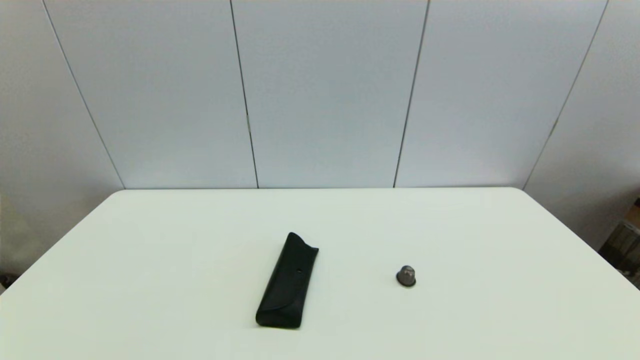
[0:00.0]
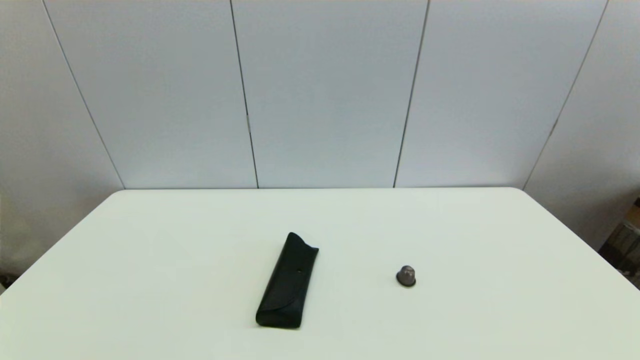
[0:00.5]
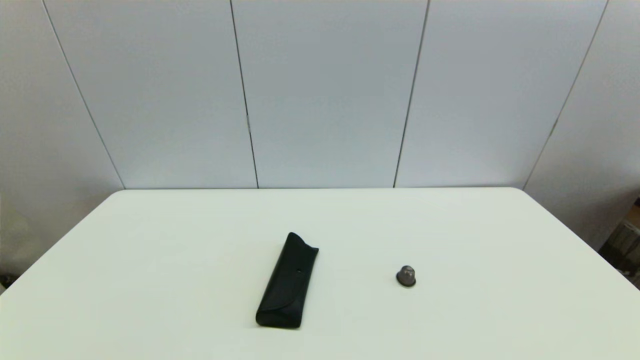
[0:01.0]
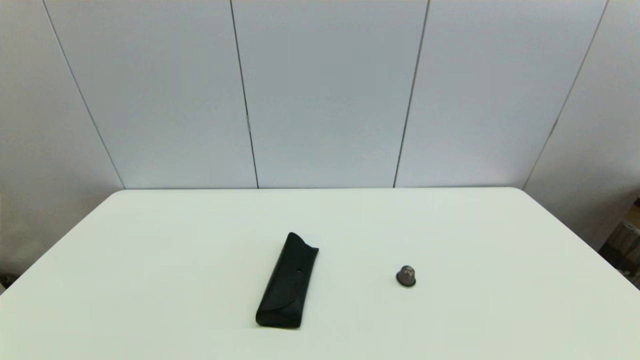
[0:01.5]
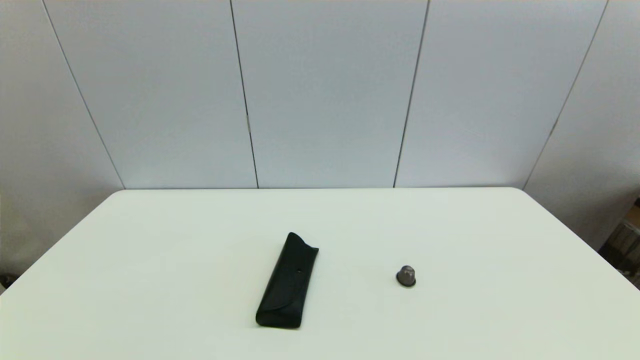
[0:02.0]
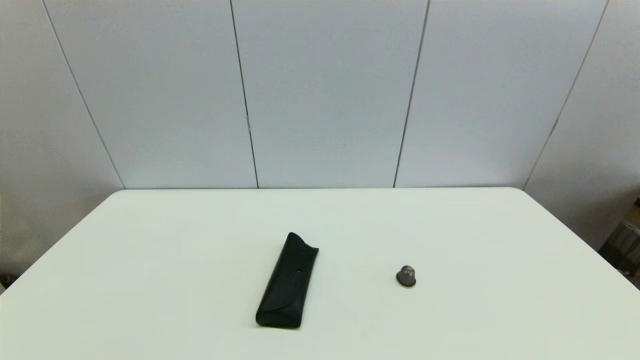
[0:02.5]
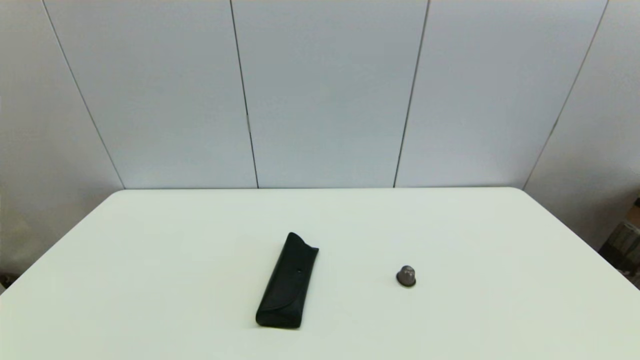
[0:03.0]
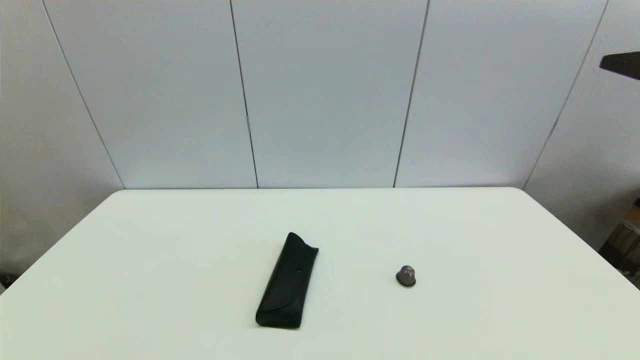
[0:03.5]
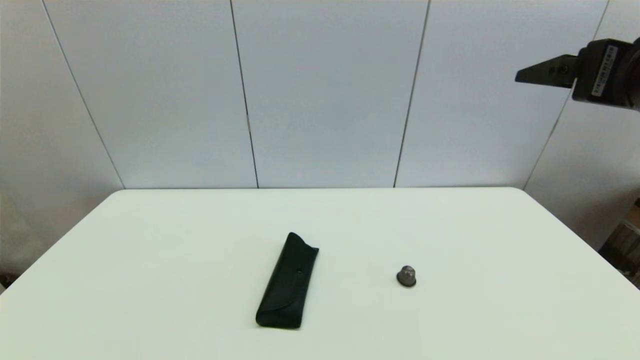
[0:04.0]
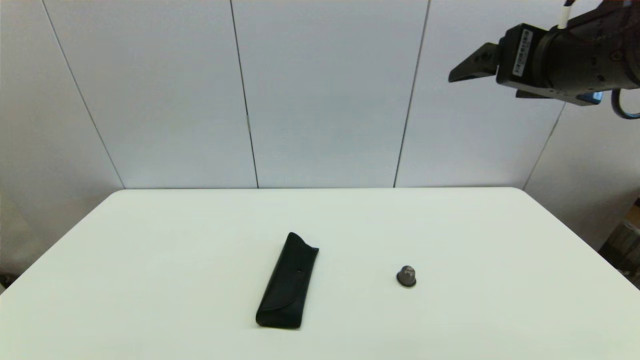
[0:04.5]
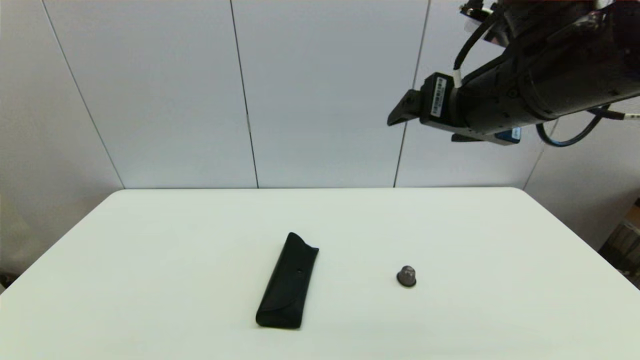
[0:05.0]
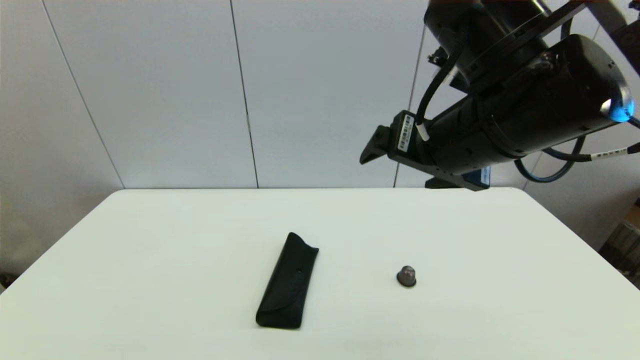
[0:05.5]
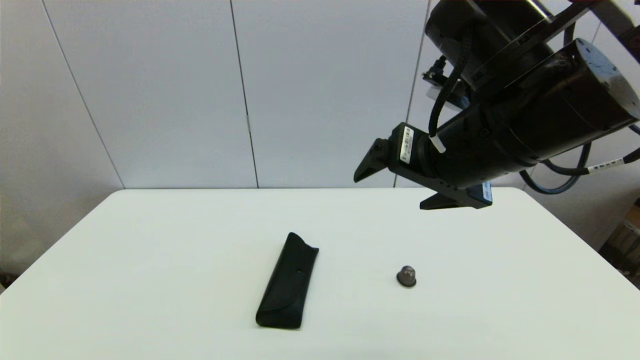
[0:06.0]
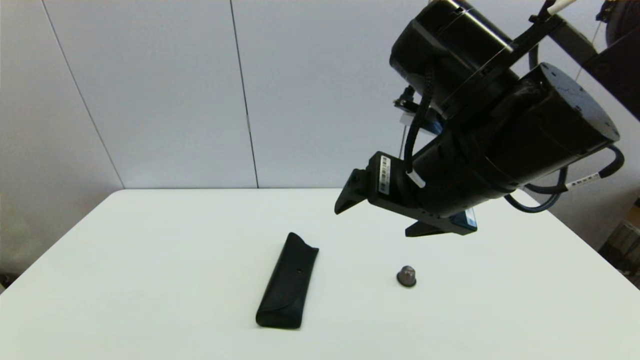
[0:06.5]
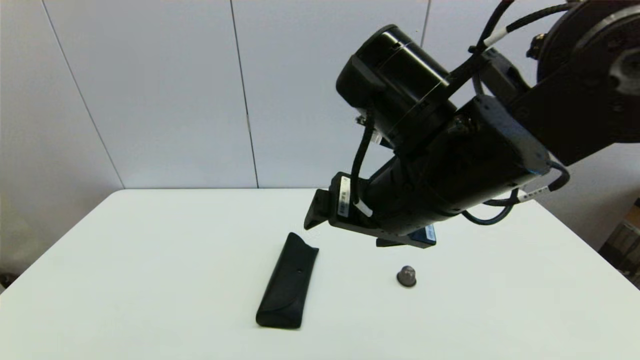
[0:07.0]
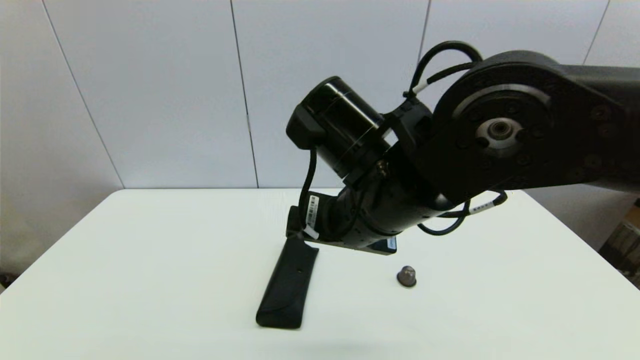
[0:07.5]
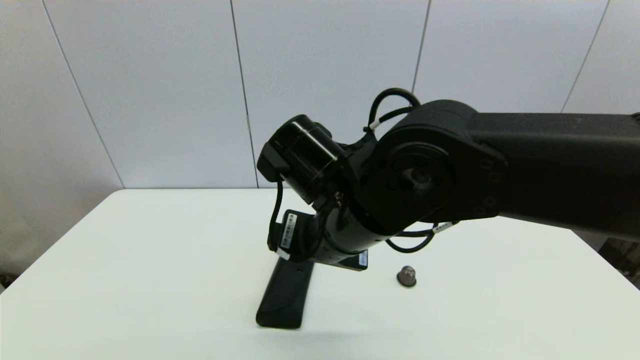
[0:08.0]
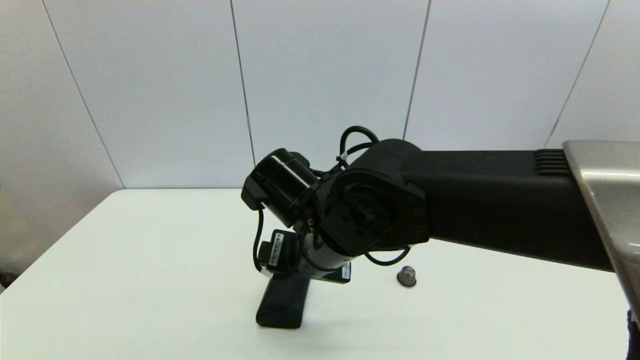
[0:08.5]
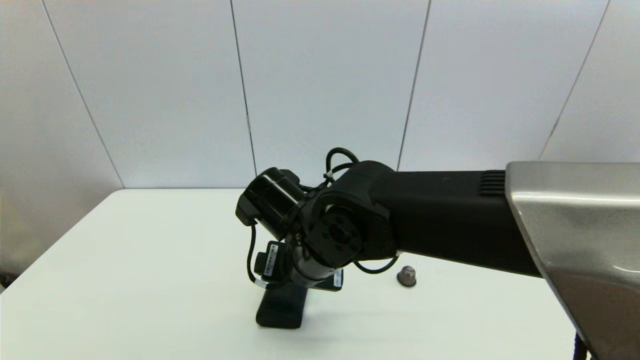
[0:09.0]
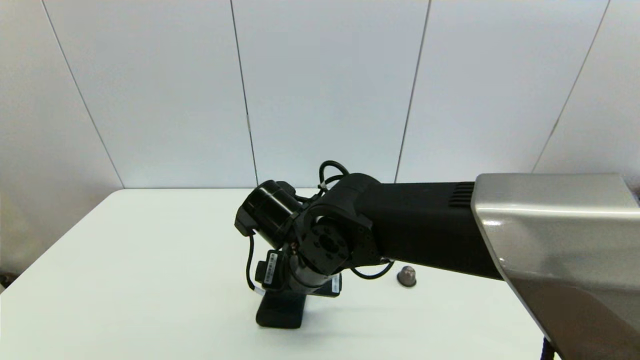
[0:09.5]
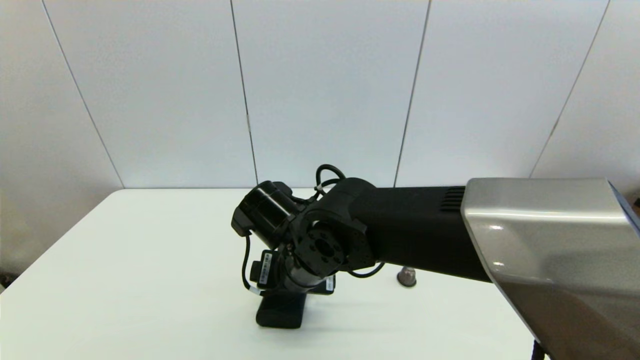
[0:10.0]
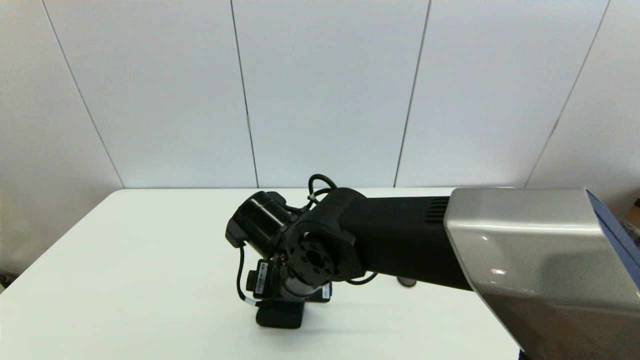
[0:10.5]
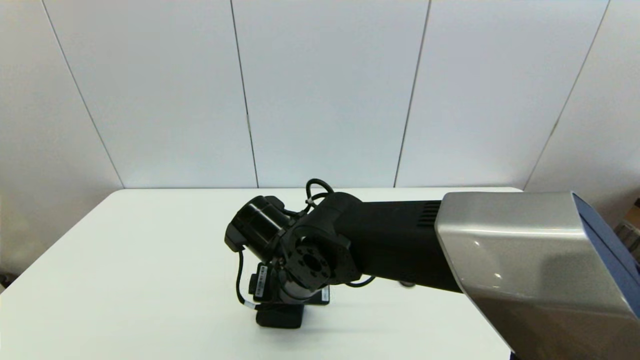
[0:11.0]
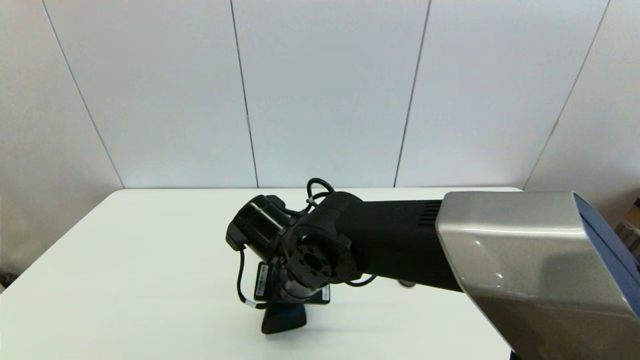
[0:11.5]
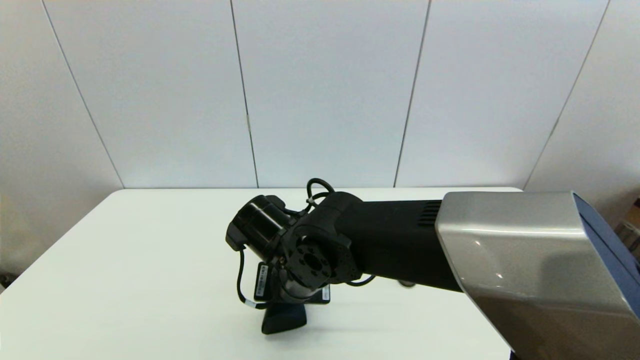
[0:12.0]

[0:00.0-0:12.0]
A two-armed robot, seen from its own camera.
Step, 0:03.5 to 0:11.5: Grasp the glasses case with right gripper.
0:02.0 to 0:04.0: The right gripper travels forward and upward by some 25 cm.
0:04.0 to 0:06.0: The right gripper travels to the left by some 15 cm.
0:06.0 to 0:08.0: The right gripper shifts approximately 15 cm to the left and downward.
0:08.0 to 0:10.0: The right gripper heads downward, covering approximately 10 cm.
0:10.0 to 0:12.0: The right gripper closes.

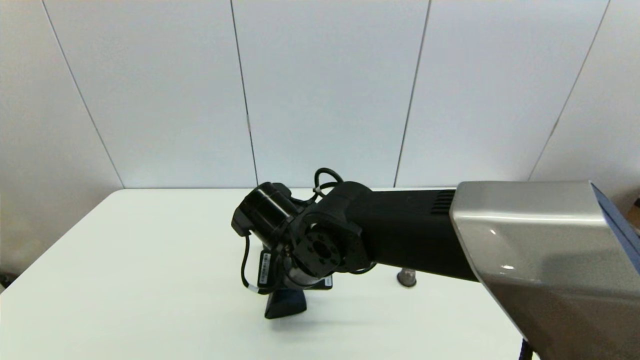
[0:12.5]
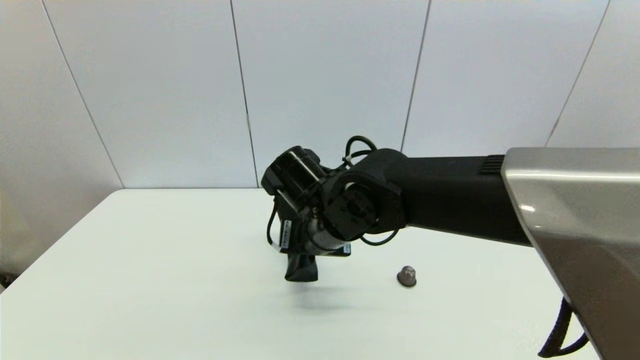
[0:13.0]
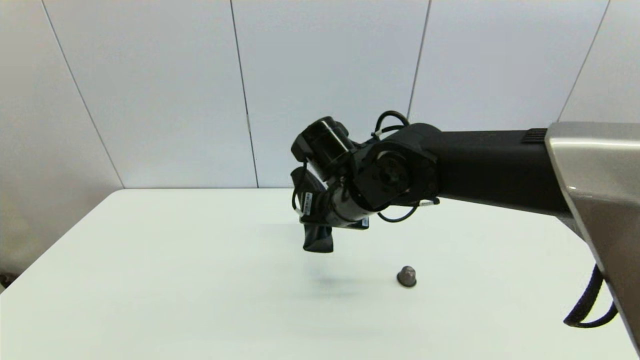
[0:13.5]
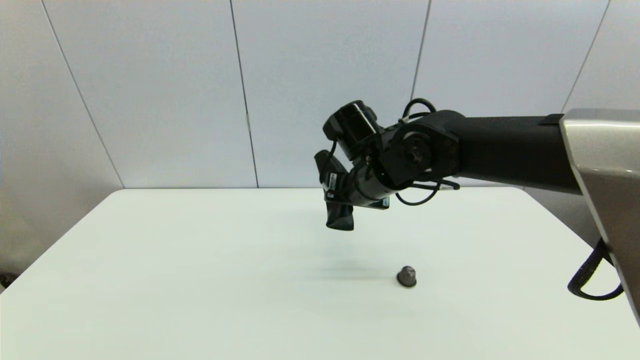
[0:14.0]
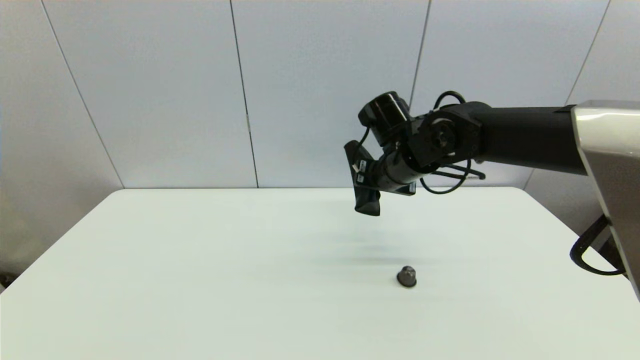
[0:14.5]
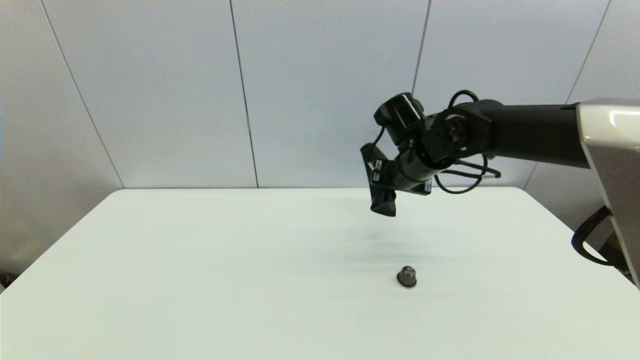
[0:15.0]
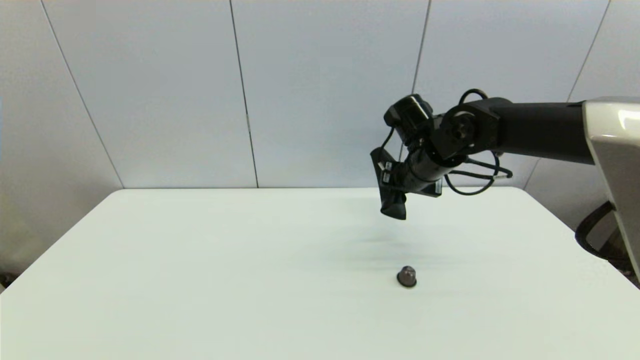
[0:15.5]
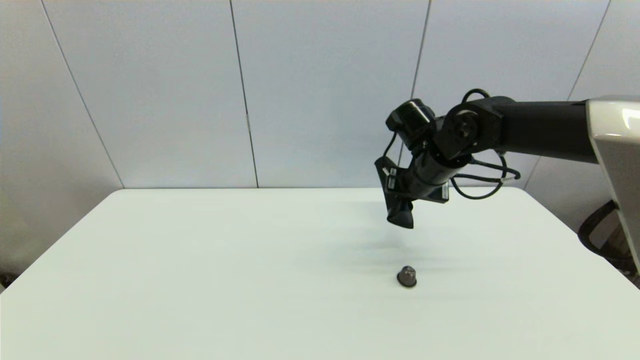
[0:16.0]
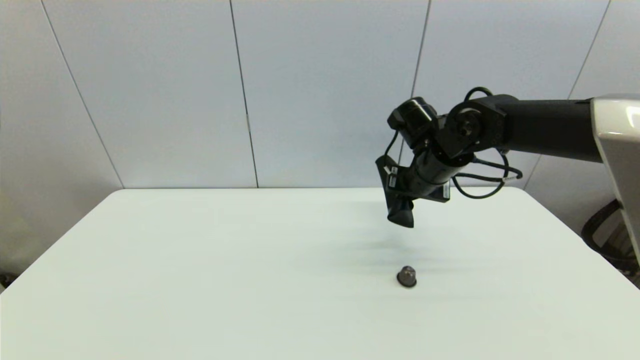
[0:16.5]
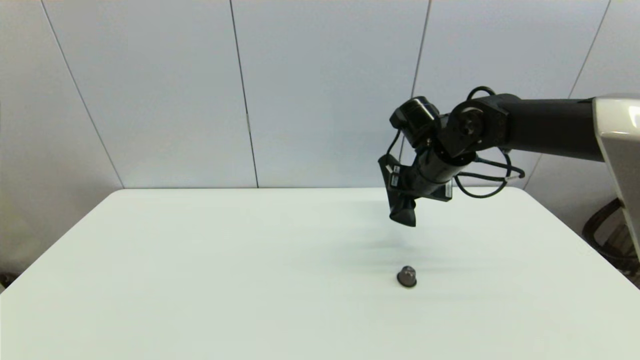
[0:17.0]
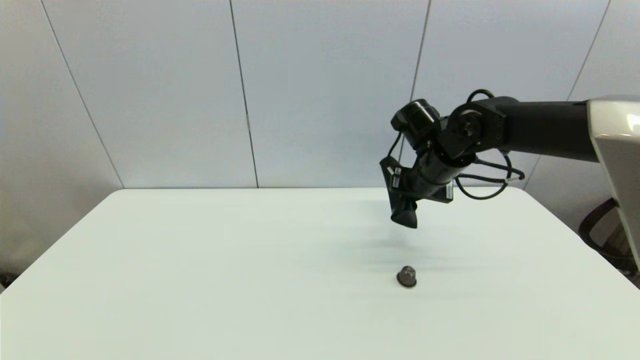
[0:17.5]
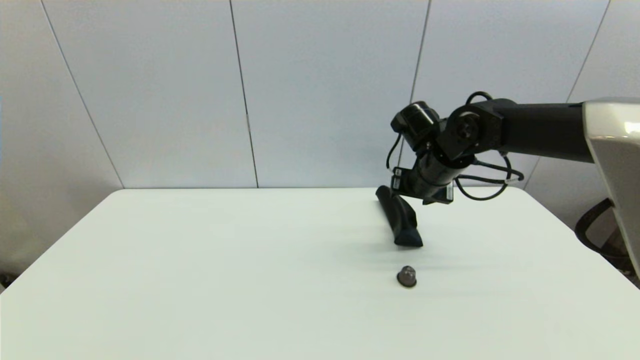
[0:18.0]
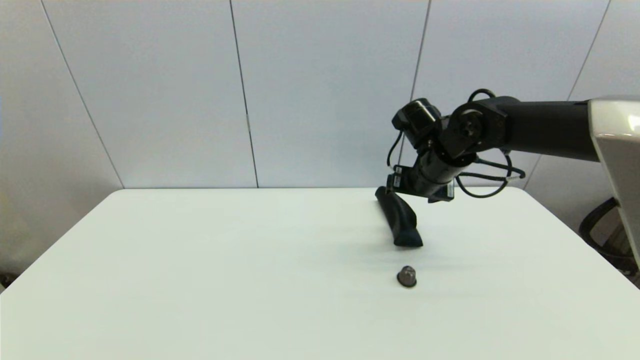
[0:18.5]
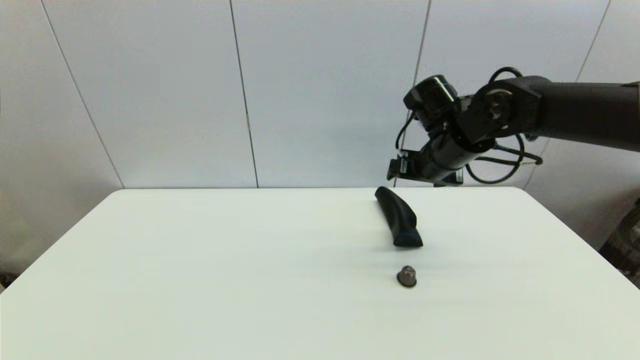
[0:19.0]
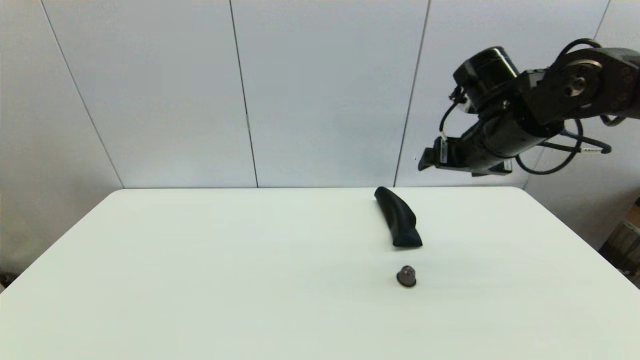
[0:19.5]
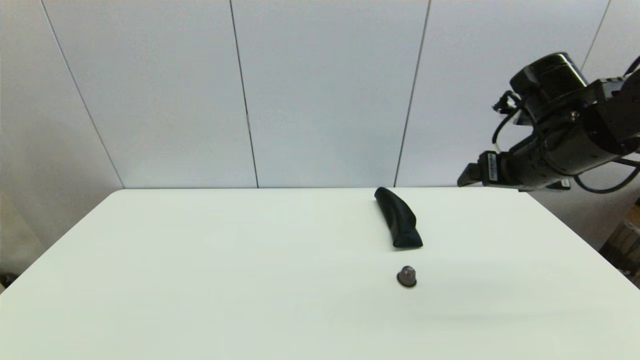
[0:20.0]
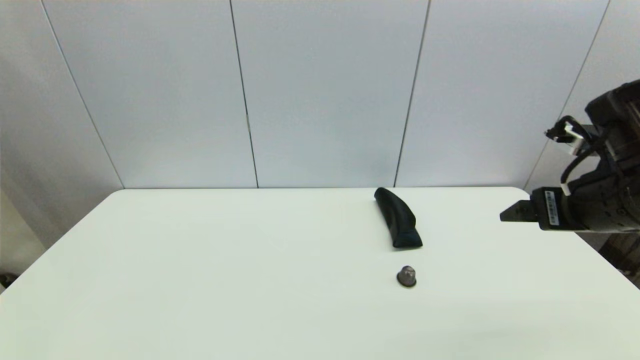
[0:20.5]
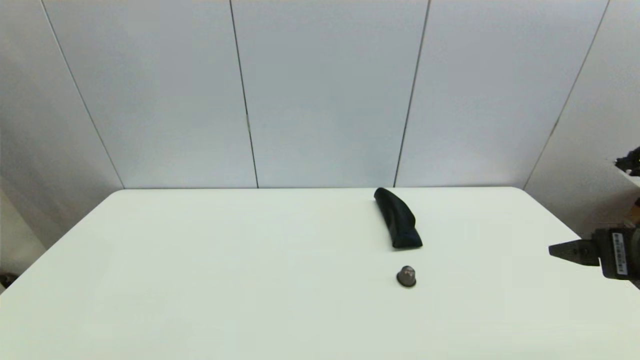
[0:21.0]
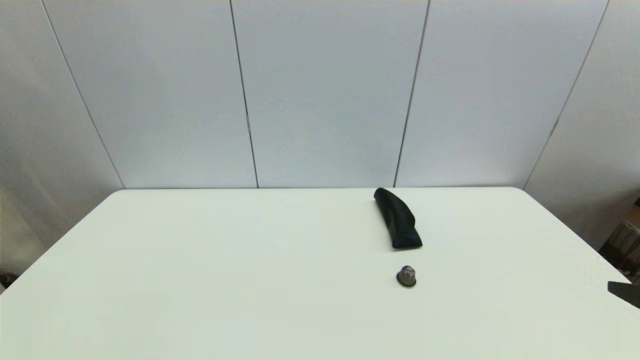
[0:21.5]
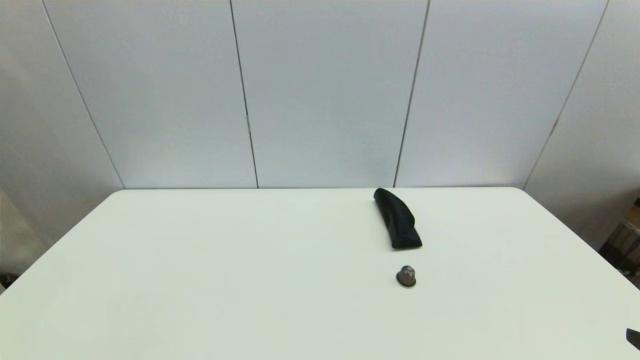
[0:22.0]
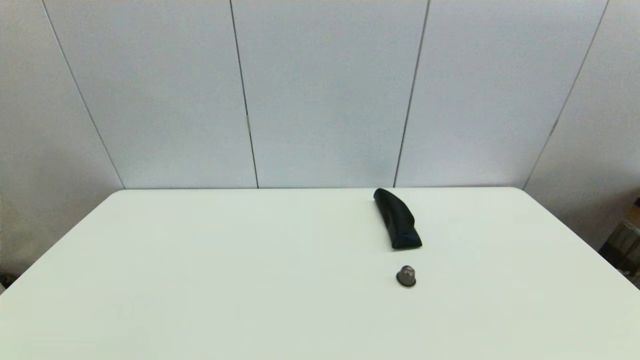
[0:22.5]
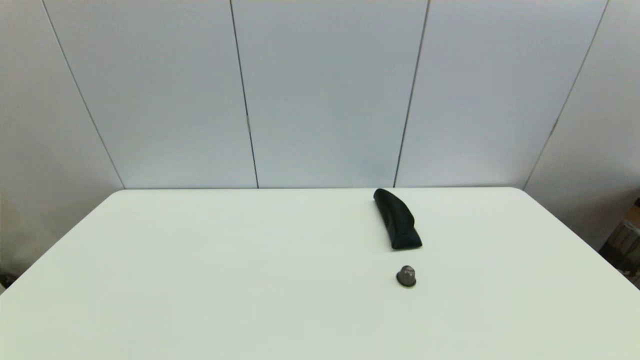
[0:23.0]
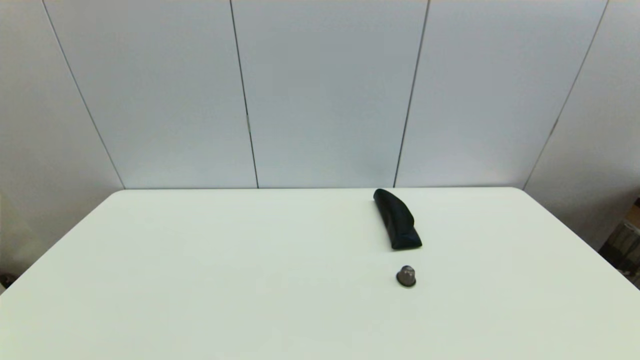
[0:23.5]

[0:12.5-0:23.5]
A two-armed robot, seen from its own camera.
Step, 0:12.5 to 0:18.0: Place the glasses case on the table with right gripper.
0:12.5 to 0:14.5: The right gripper goes approximately 20 cm to the right, forward and upward.
0:14.5 to 0:16.0: The right gripper changes place by some 5 cm.
0:16.0 to 0:18.0: The right gripper opens up.
0:18.0 to 0:20.0: The right gripper is displaced to the right, backward and upward by about 15 cm, and opens its fingers.
0:20.0 to 0:21.5: The right gripper heads backward, covering some 20 cm.
